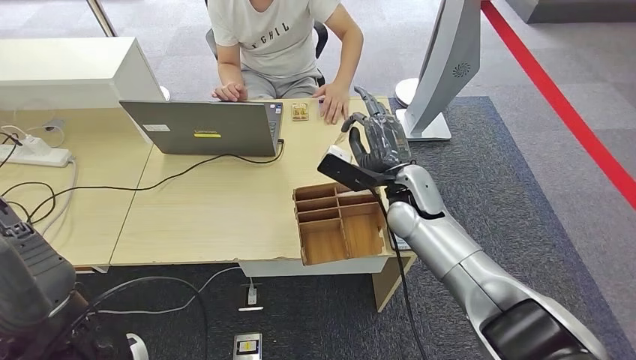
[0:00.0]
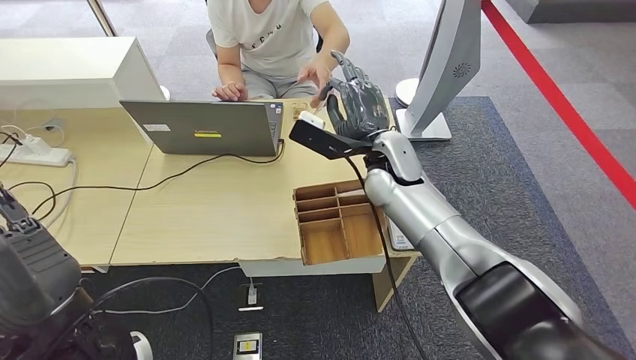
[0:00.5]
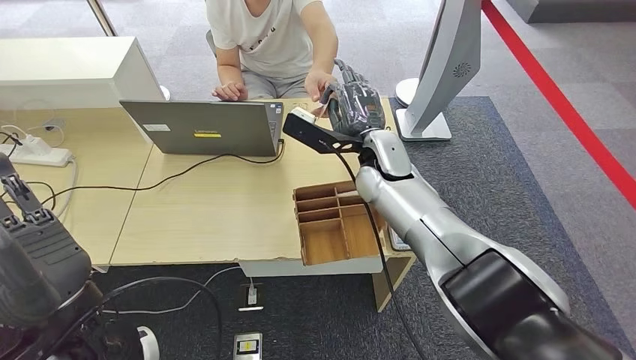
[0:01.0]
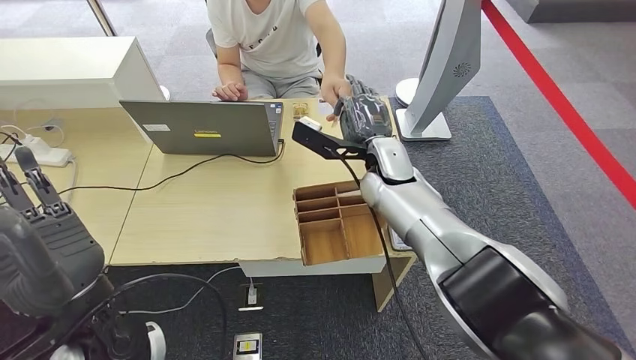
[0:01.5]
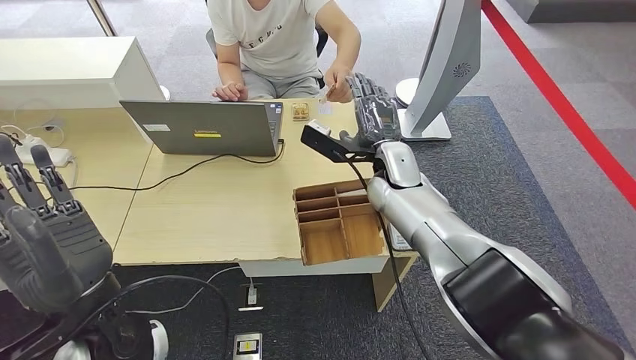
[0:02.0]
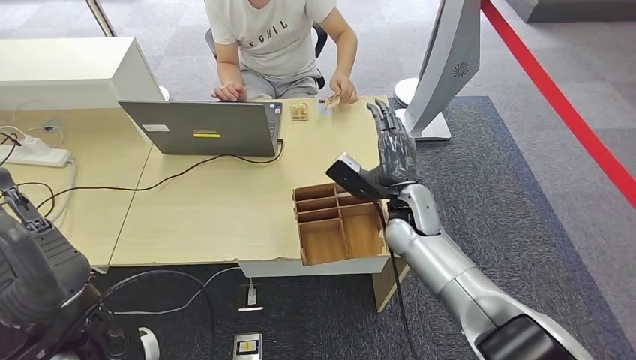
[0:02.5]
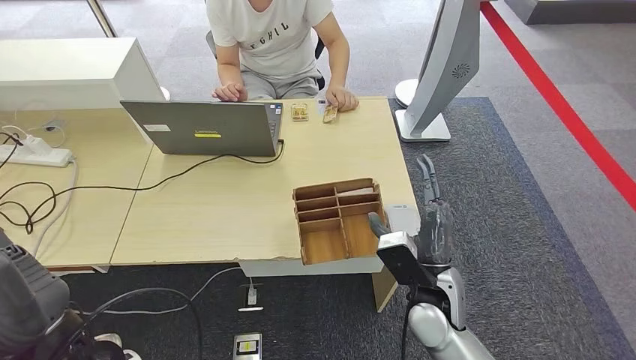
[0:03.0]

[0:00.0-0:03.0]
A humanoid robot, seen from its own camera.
Step, 0:00.5 to 0:03.0: Hand the room key to the person.
0:00.0 to 0:01.5: The right hand shifts by approximately 5 cm.
0:01.5 to 0:03.0: The right hand heads backward and downward, covering some 20 cm.
